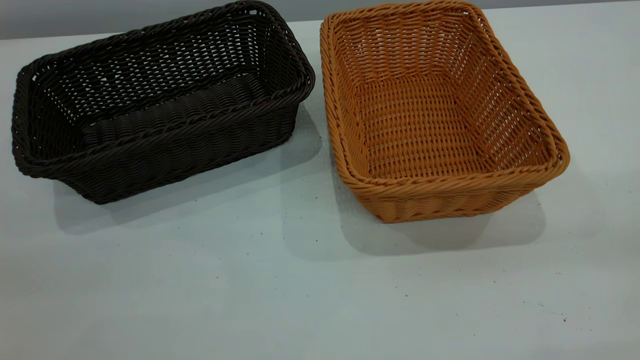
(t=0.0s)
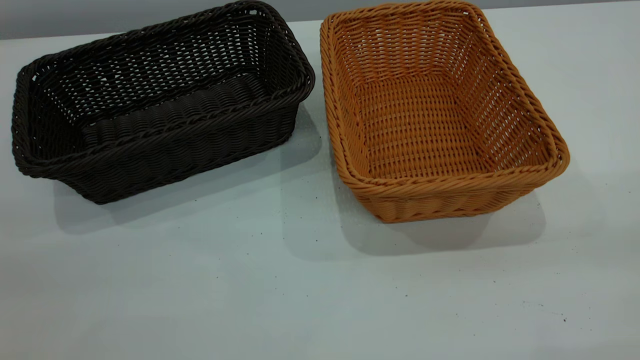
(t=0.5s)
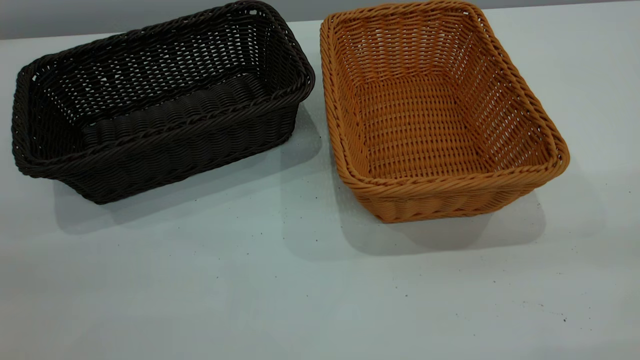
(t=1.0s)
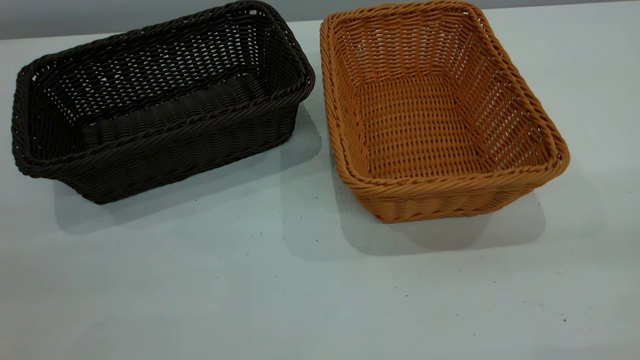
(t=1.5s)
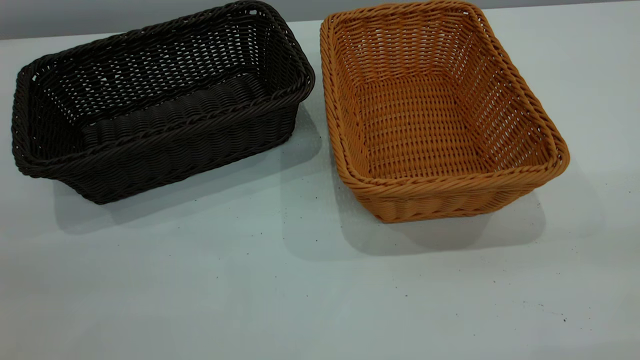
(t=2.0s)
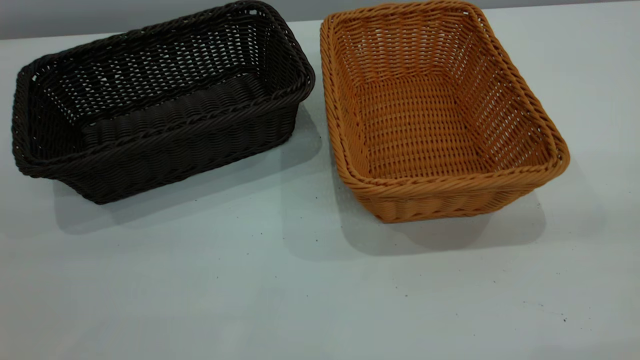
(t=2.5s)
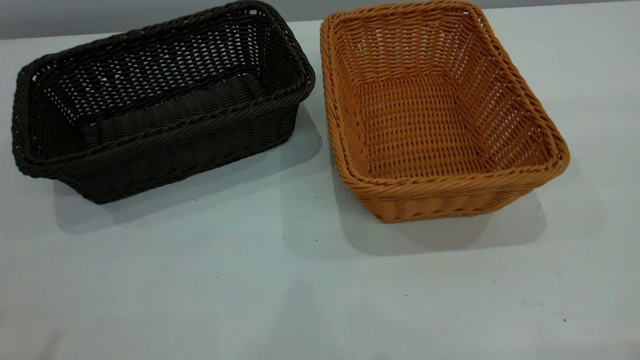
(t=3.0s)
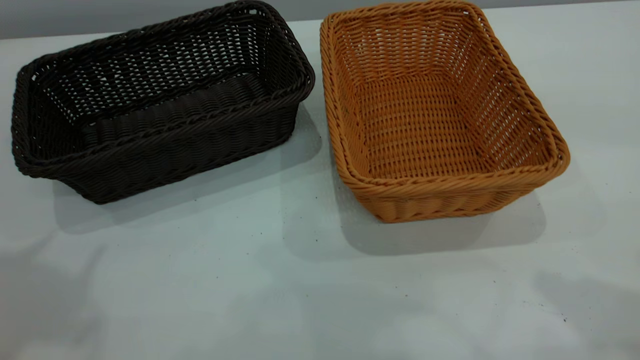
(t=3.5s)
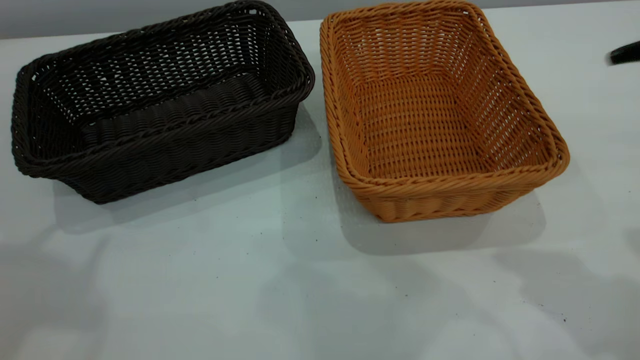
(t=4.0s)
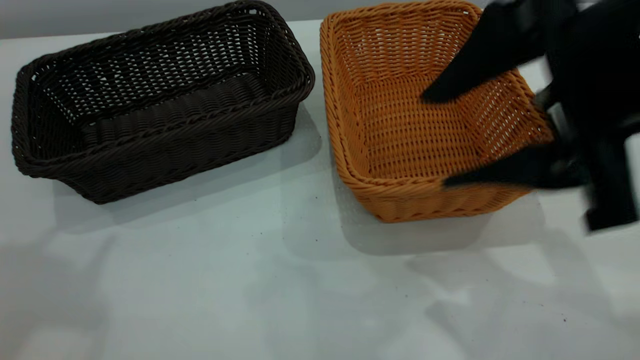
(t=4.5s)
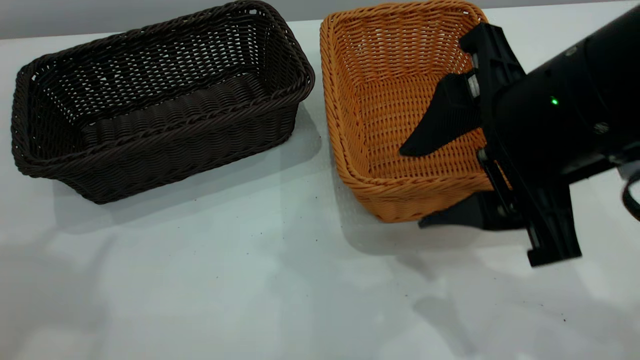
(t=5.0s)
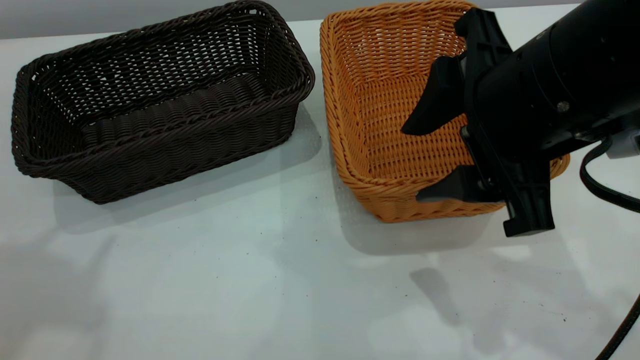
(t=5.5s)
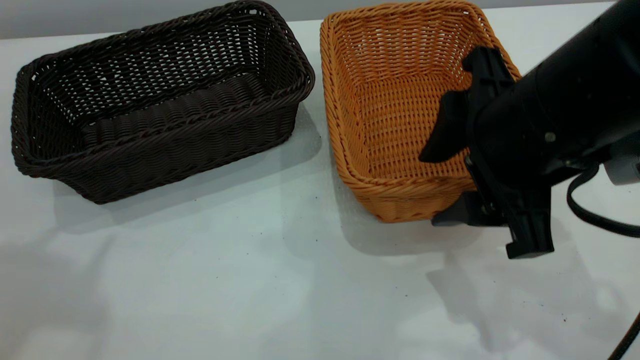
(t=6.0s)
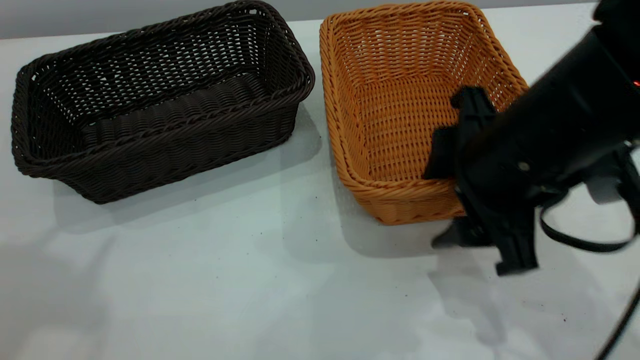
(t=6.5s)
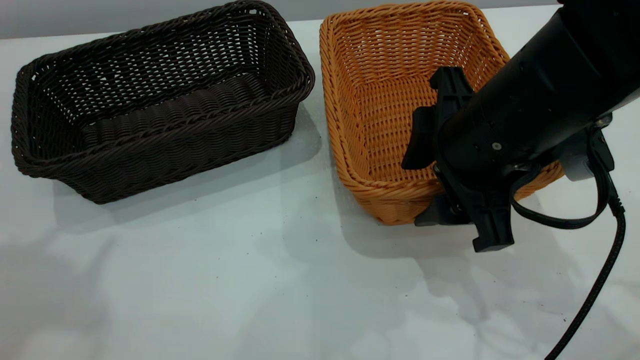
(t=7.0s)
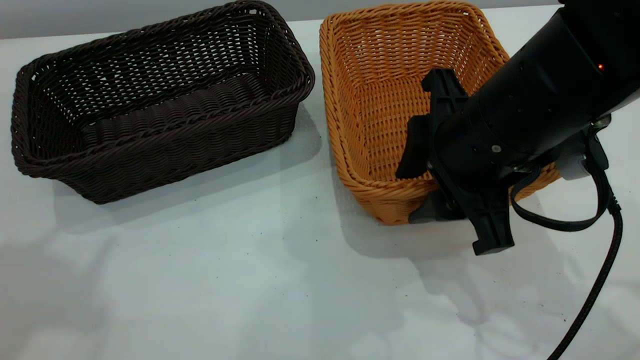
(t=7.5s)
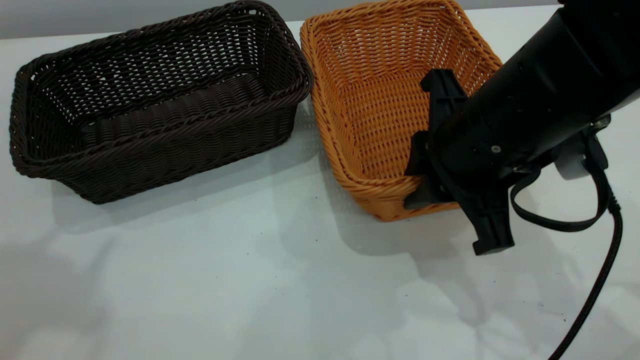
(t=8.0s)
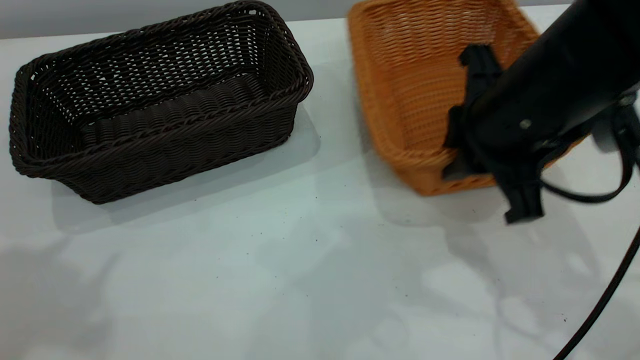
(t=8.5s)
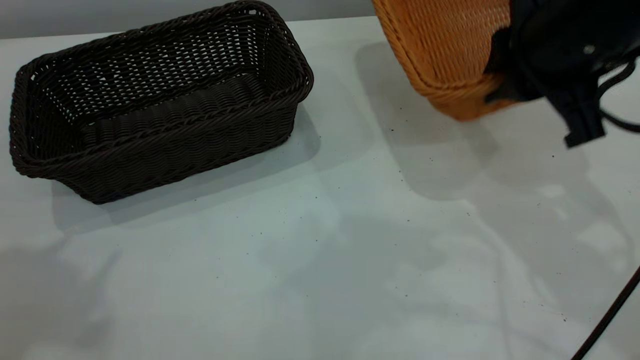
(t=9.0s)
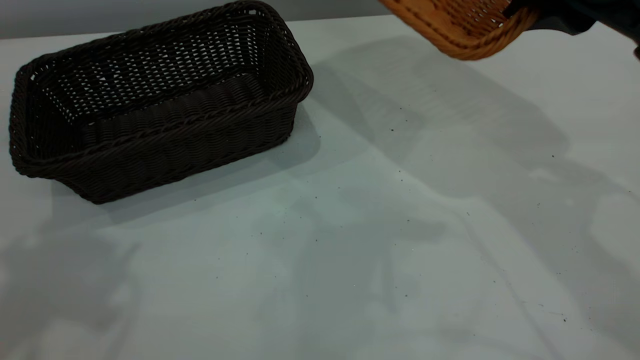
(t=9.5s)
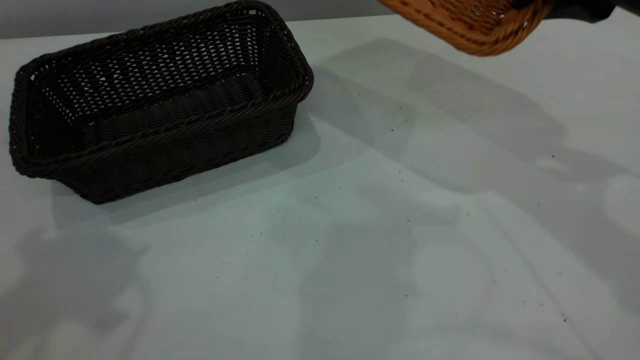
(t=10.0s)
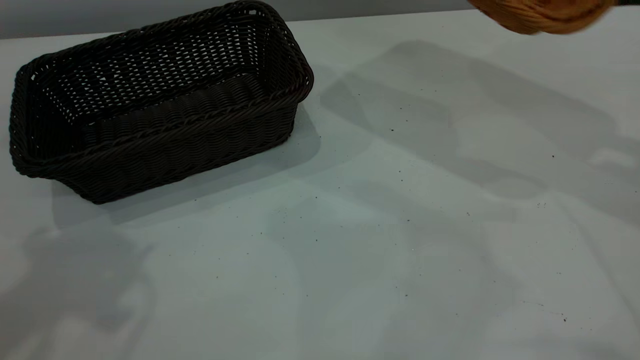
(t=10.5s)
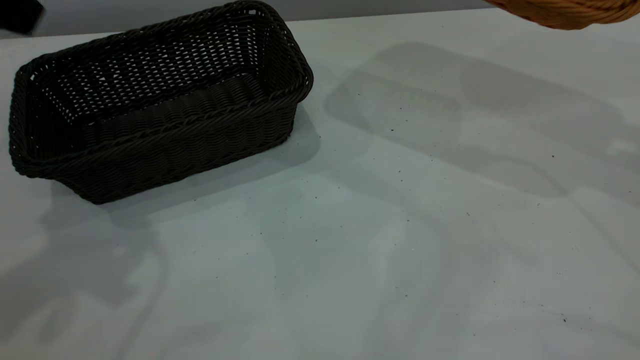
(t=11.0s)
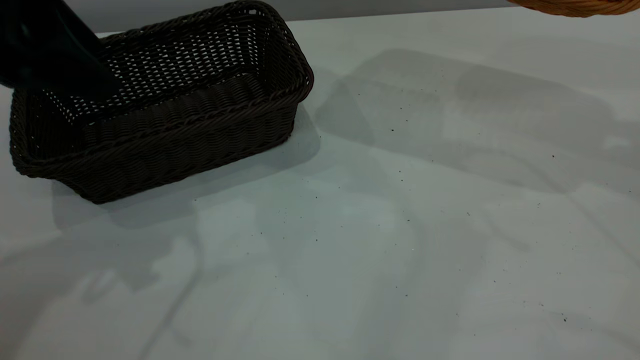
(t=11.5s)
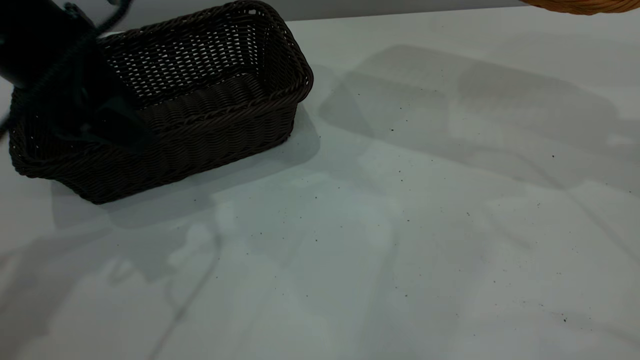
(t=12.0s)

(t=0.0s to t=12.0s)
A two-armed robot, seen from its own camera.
Task of the whole recording: the left gripper grasp the black basket and place it in the center of the table, the right gripper grasp the brown basket and place it inside the black one.
Step, t=0.0s - t=8.5s: Pick up the light basket with the right gripper.
t=0.0s - t=2.0s: Both grippers stay put.
t=4.0s - t=6.0s: The right gripper goes about 15 cm downward and to the left.
t=6.0s - t=8.0s: The right gripper closes.
t=8.0s - t=10.0s: The left gripper changes place by roughly 5 cm, while the right gripper is displaced upward and to the right by some 15 cm.
t=10.0s - t=12.0s: The left gripper moves downward and forward, roughly 15 cm, while the right gripper goes roughly 10 cm to the right.

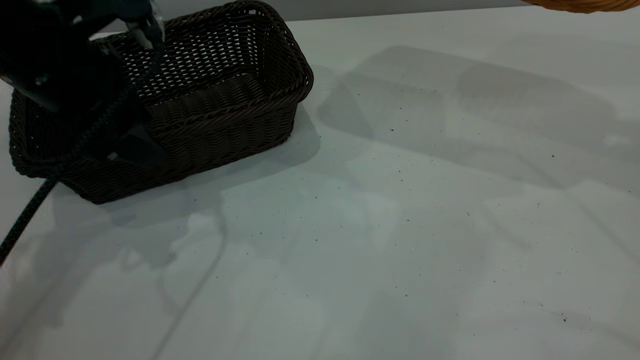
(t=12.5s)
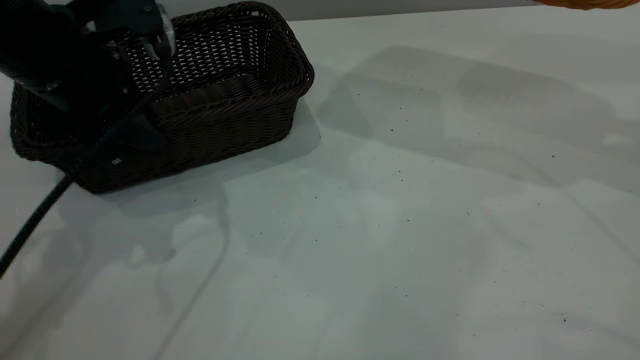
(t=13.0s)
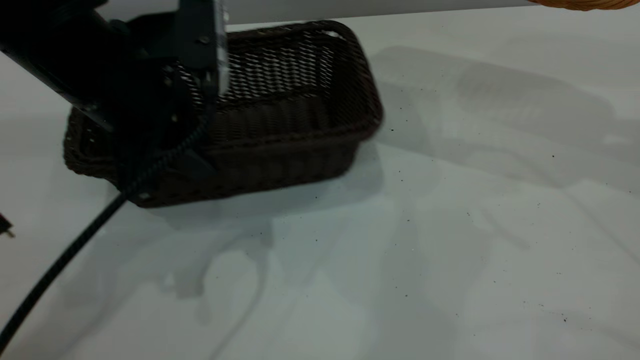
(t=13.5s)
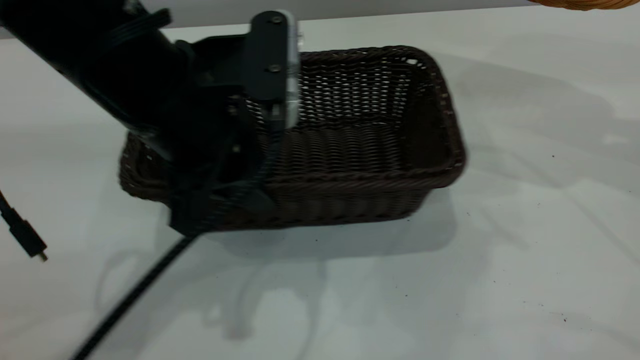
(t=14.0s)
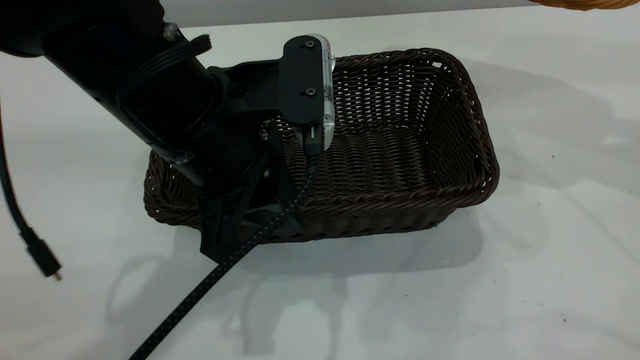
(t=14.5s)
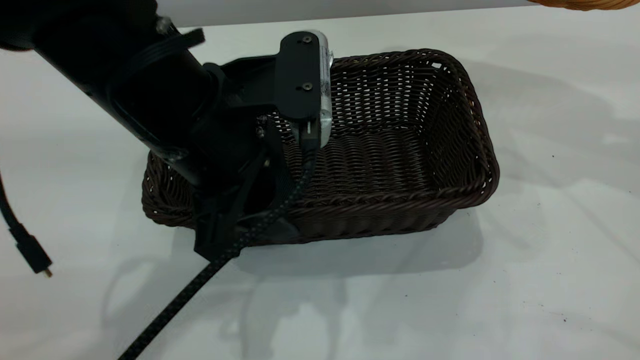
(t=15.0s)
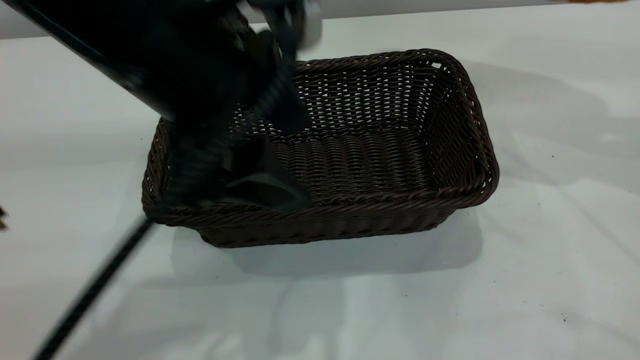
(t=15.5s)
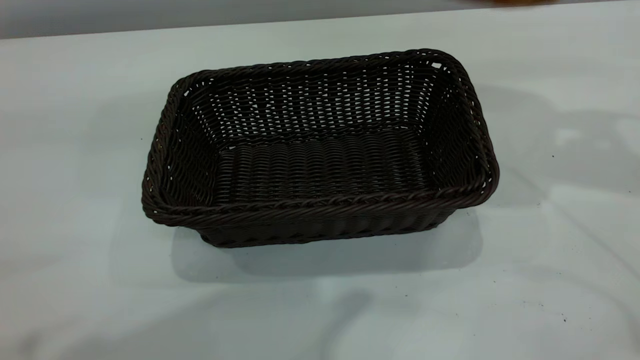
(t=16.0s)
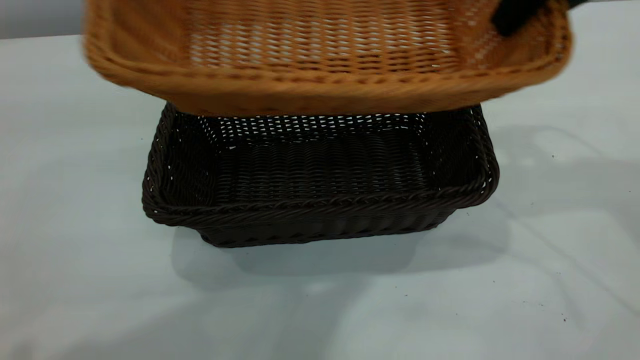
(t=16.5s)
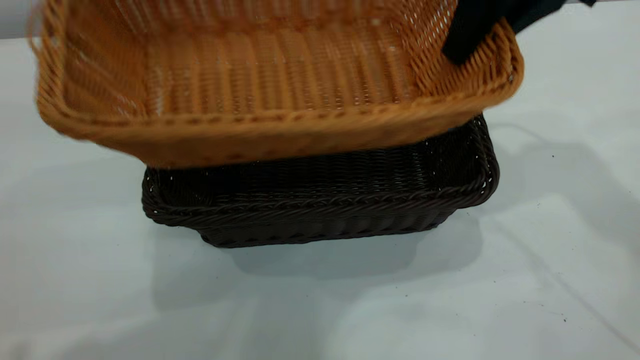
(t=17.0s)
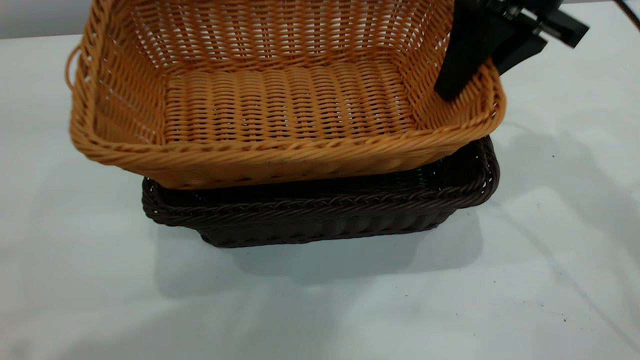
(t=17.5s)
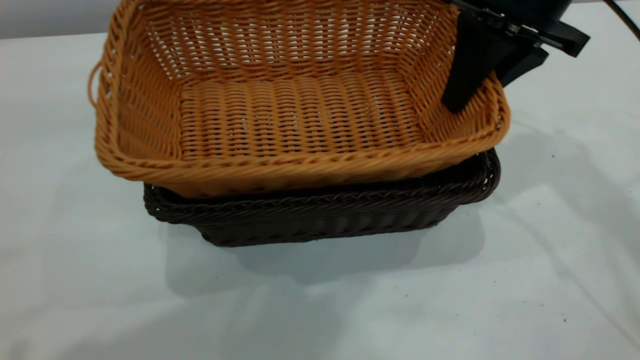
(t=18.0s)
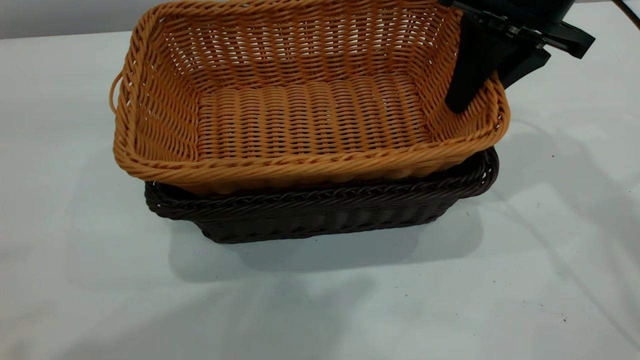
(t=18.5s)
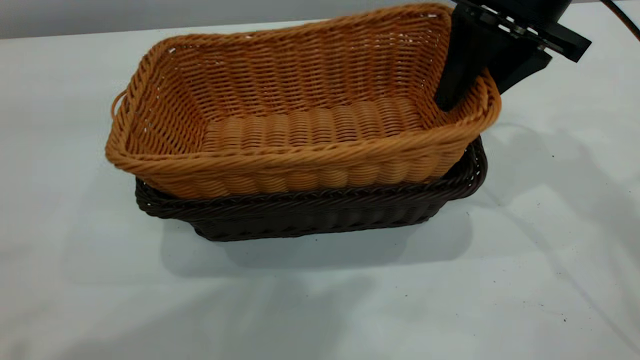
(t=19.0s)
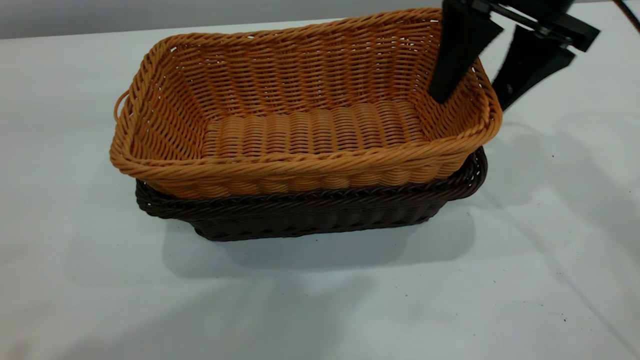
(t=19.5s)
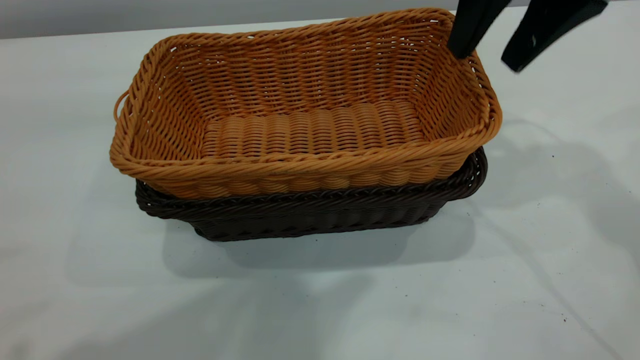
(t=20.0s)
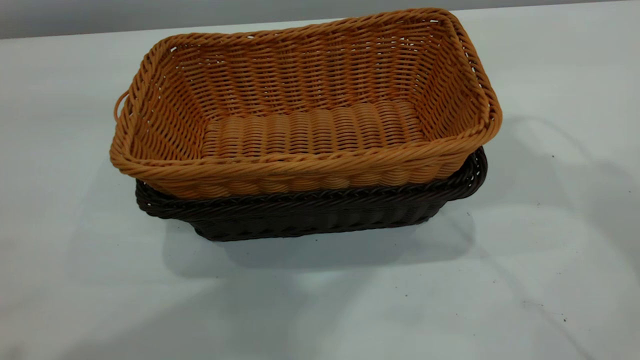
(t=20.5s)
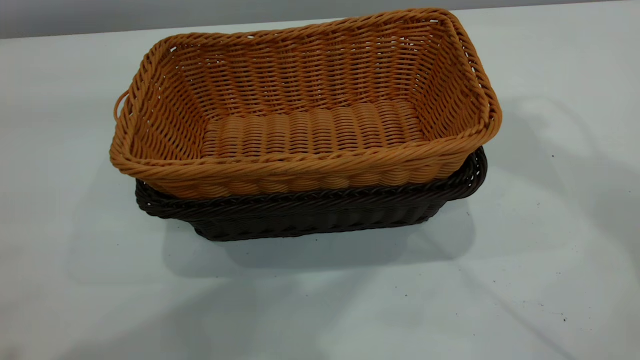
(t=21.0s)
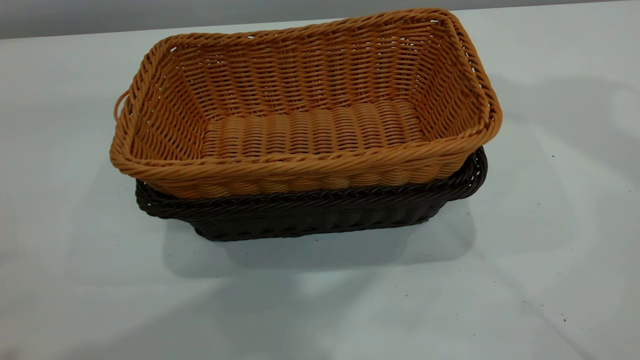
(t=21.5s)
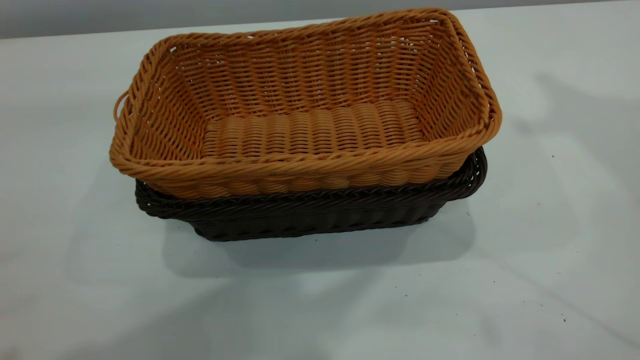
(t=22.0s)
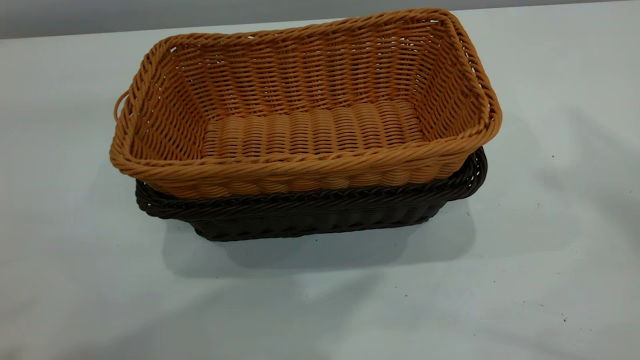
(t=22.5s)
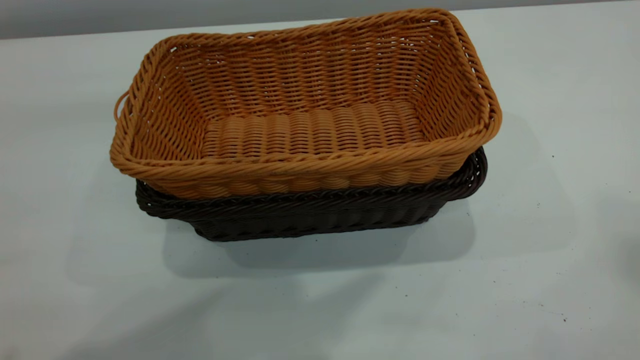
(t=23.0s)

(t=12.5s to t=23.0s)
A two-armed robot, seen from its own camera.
Task of the whole recording: the left gripper grasp the black basket and place it in the center of the table, the right gripper grasp the brown basket and place it inside the black one.
Step, t=12.5s - t=15.5s: Move the dark basket to the center of view.
Step, t=16.0s - t=20.0s: Place the light basket on the dark basket.
t=12.5s - t=14.5s: The left gripper is displaced to the right and backward by about 15 cm, and closes.
t=14.5s - t=16.5s: The left gripper travels upward by about 25 cm, and opens up. The right gripper is displaced to the left by about 10 cm.
t=16.5s - t=19.0s: The right gripper goes roughly 5 cm downward.
t=19.0s - t=21.0s: The right gripper goes about 25 cm upward, and closes.
